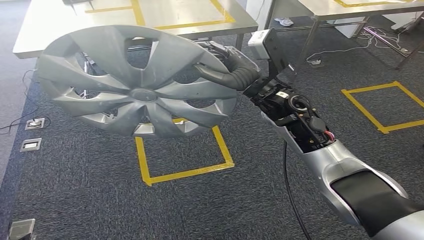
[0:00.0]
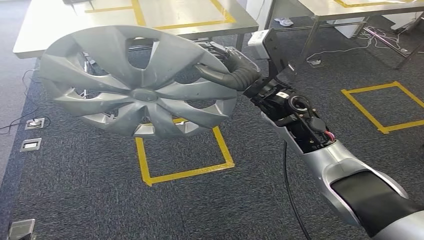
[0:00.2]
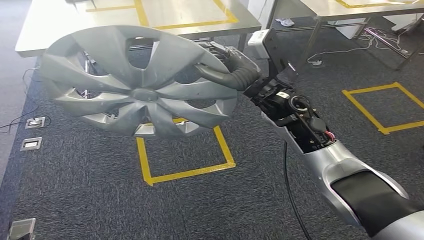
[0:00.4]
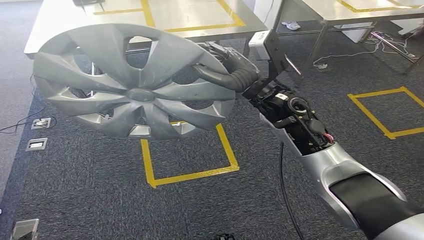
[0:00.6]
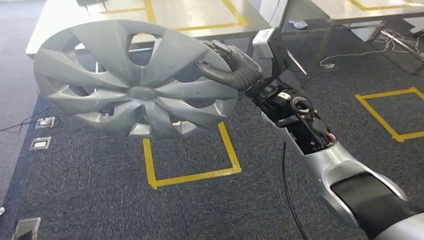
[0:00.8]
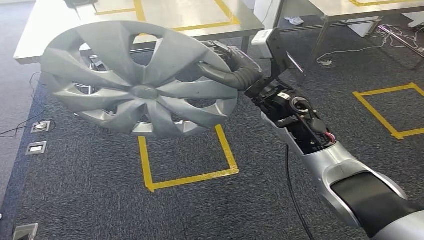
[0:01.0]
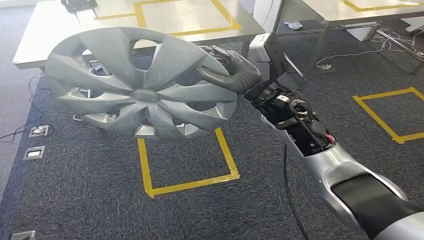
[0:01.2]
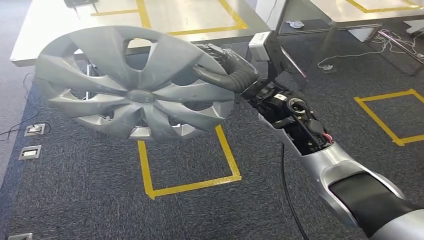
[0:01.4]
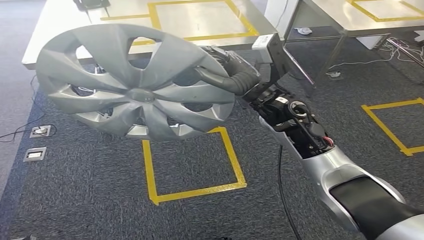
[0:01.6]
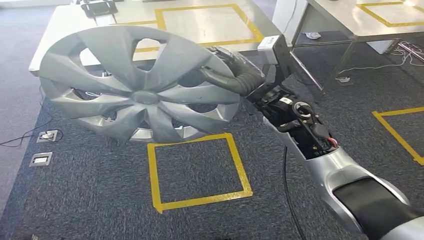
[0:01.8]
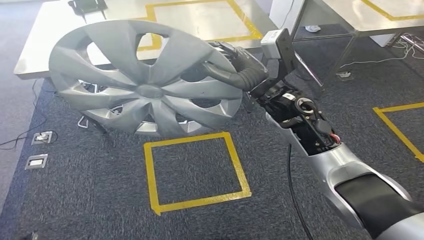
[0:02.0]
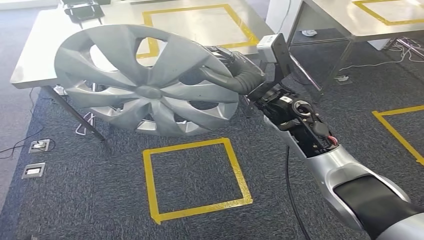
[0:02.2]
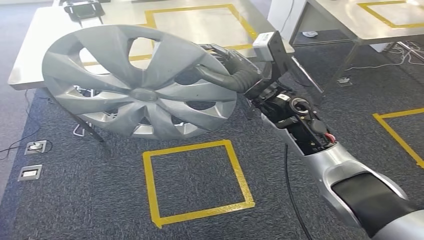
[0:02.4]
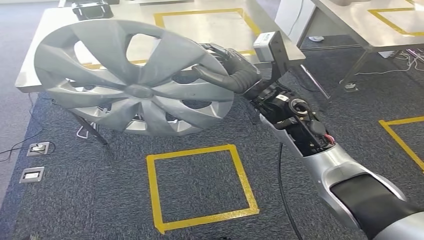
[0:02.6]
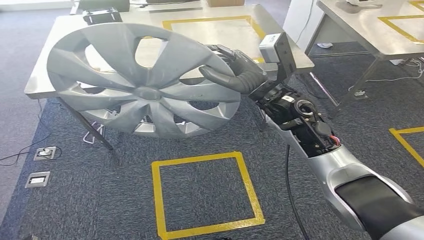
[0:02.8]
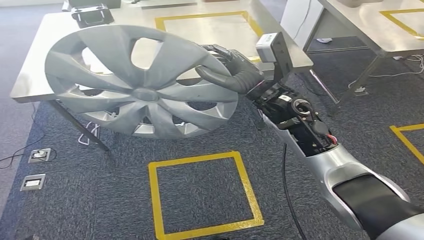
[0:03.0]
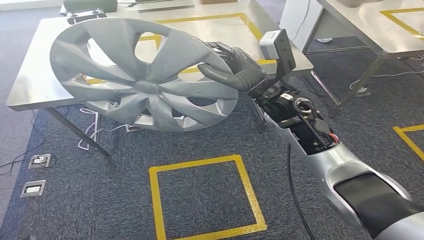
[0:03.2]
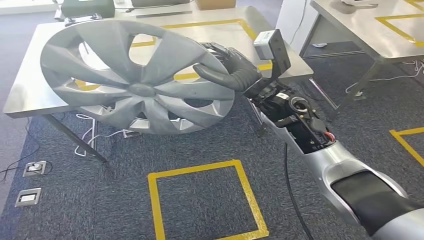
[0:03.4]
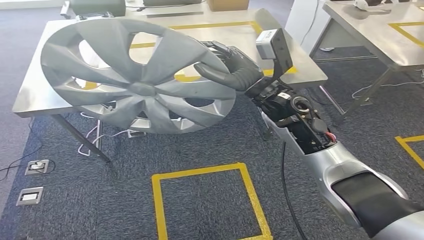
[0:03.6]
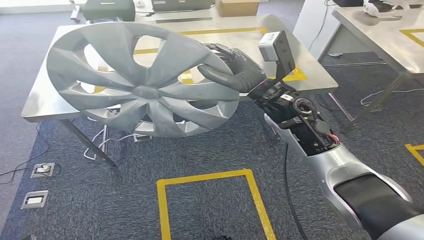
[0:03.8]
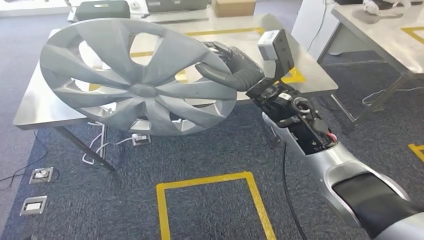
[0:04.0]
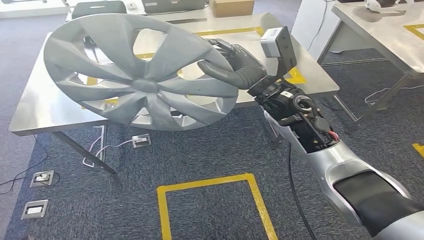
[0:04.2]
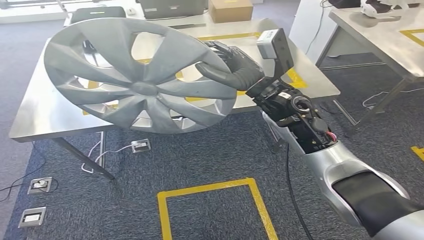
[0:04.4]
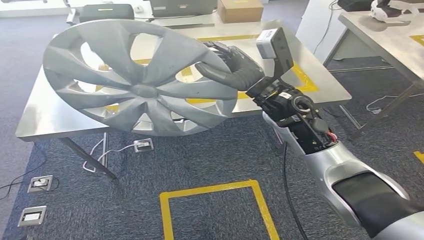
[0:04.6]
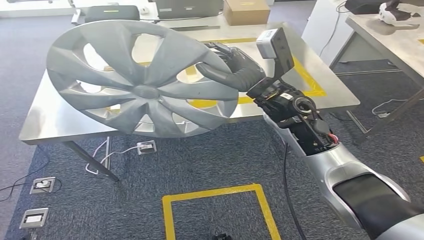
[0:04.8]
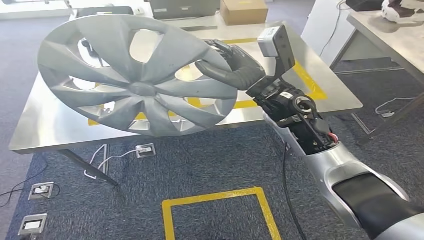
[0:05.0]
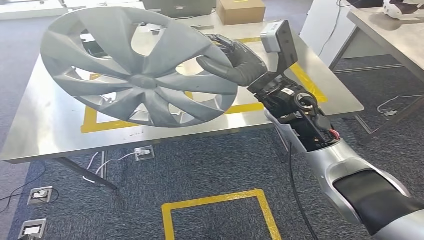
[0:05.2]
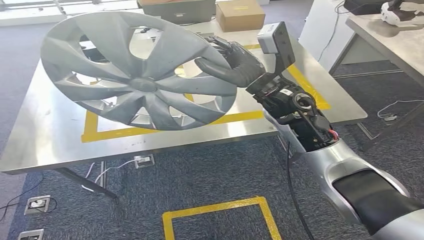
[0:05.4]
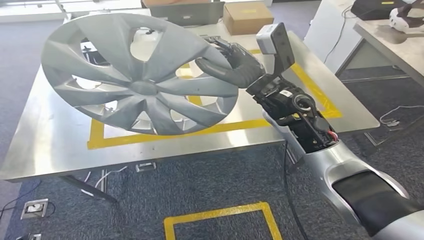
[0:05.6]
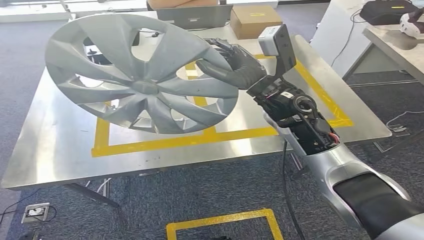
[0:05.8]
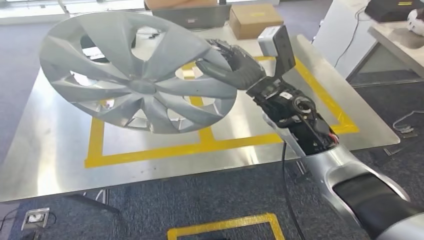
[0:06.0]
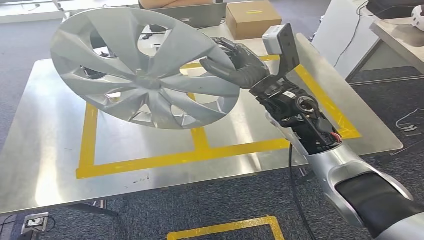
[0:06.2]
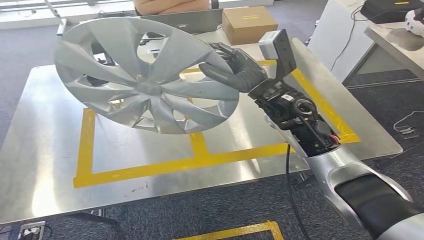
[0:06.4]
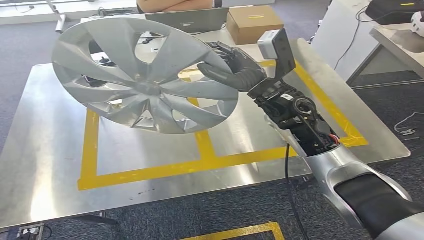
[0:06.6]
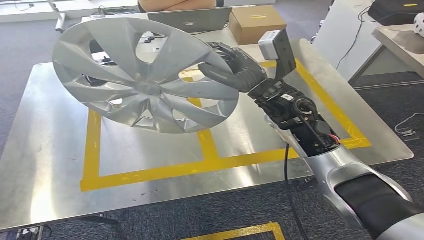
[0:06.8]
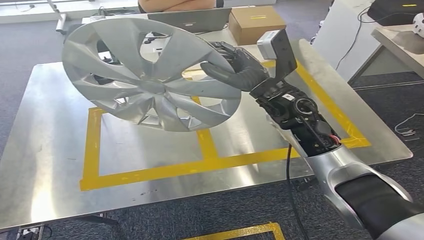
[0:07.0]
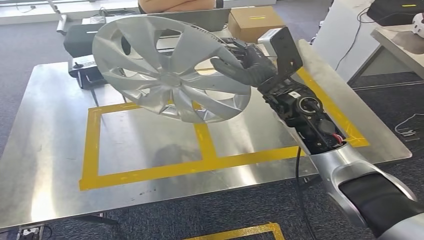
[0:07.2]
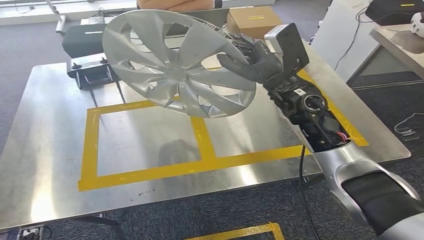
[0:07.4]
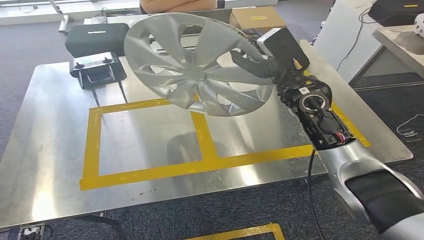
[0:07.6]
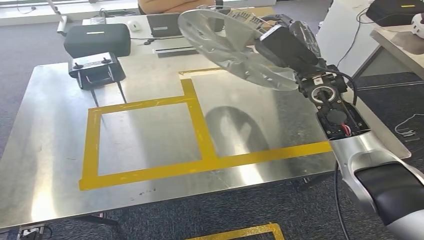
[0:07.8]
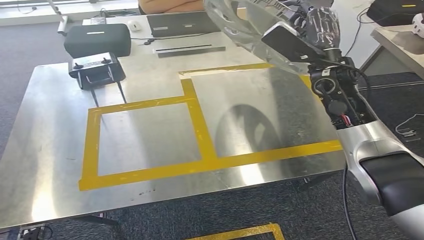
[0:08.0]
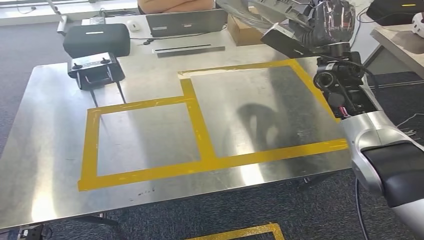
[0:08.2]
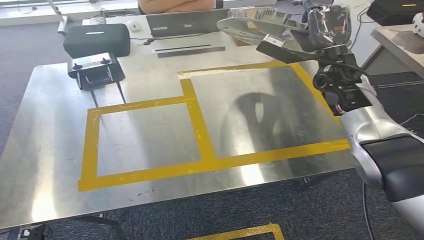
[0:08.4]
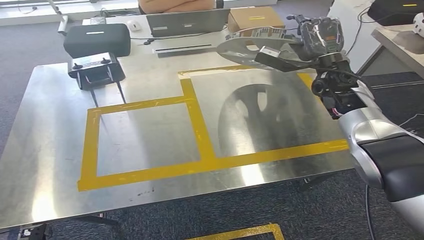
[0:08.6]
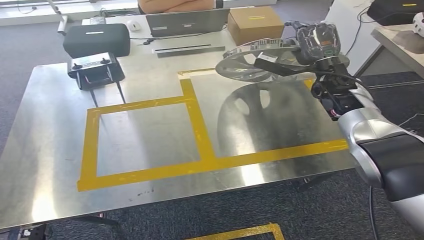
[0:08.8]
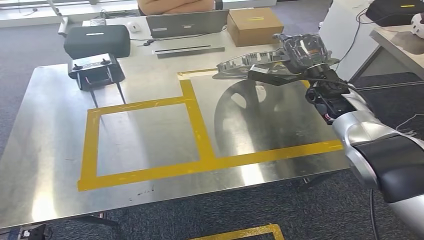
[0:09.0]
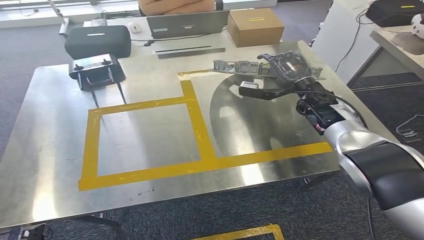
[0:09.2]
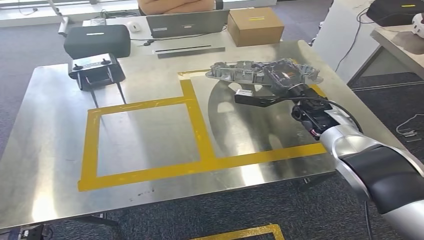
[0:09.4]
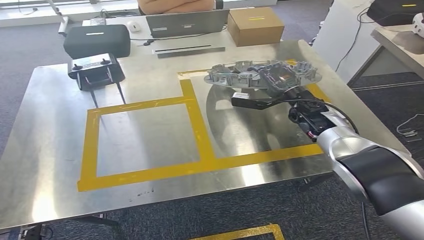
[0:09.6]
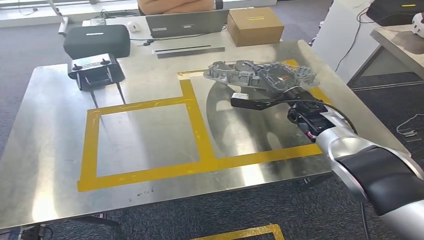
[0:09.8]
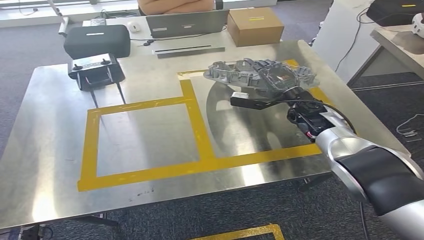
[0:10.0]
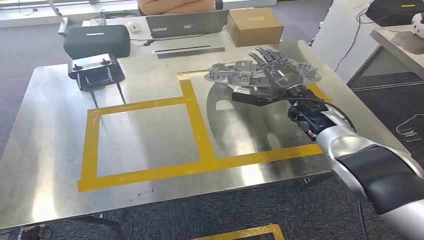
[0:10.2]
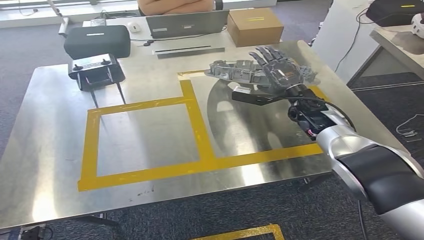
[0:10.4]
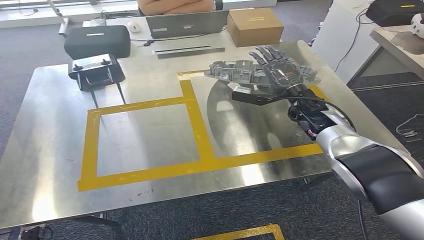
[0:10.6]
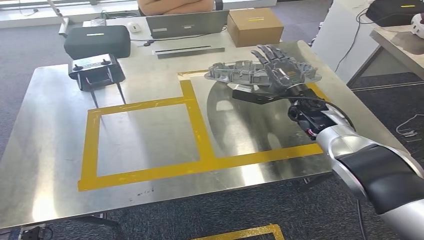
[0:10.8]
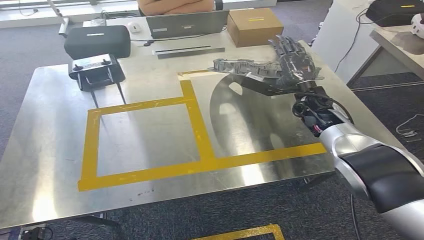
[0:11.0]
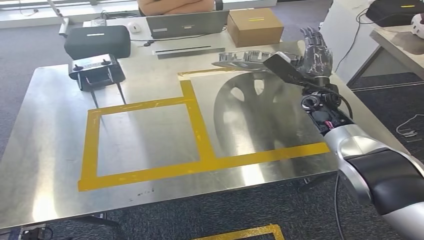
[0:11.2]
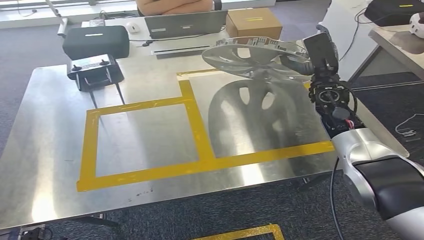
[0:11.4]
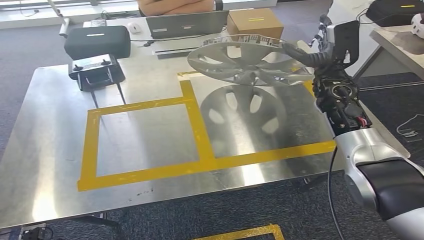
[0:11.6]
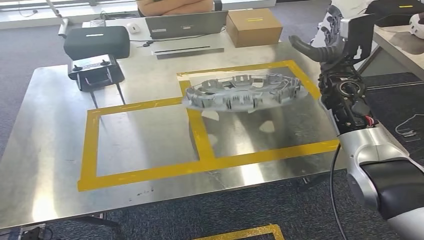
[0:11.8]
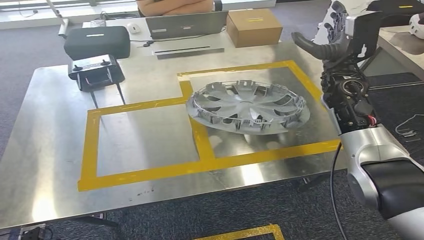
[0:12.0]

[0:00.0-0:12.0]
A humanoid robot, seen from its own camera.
Step, 0:00.0 to 0:06.8: Move the small component to the workbench.
0:09.0 to 0:10.4: The right hand shifts approximately 5 cm downward.
0:10.4 to 0:12.0: The right hand goes about 10 cm upward.

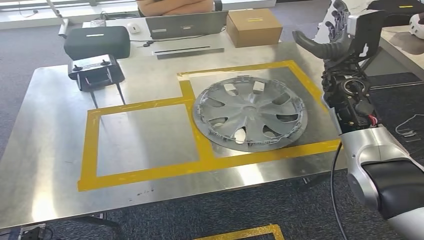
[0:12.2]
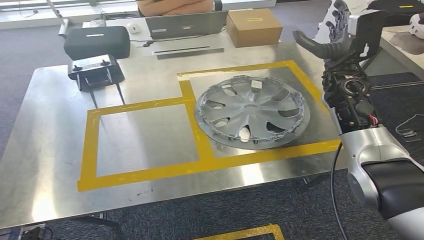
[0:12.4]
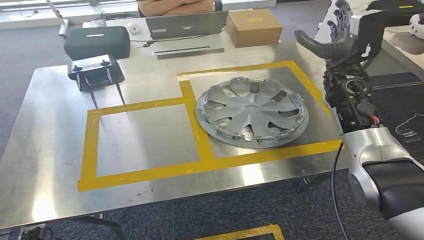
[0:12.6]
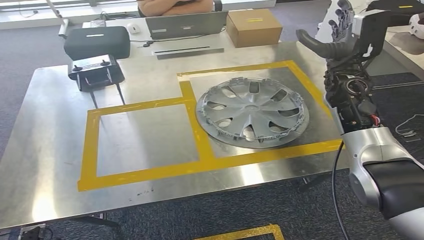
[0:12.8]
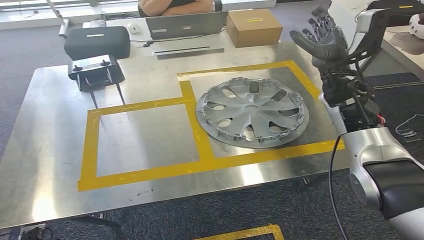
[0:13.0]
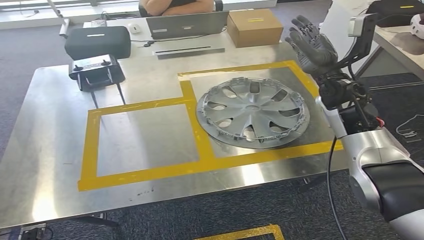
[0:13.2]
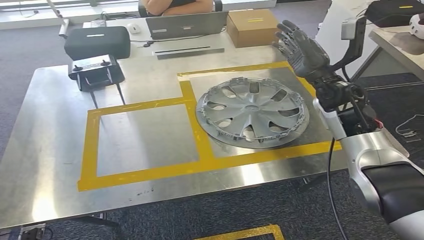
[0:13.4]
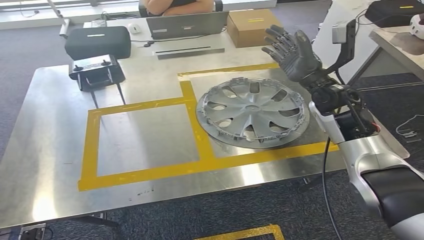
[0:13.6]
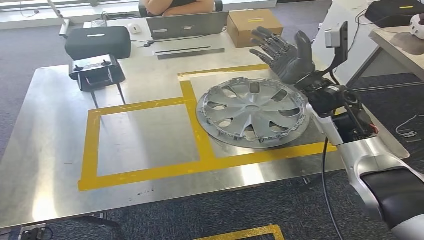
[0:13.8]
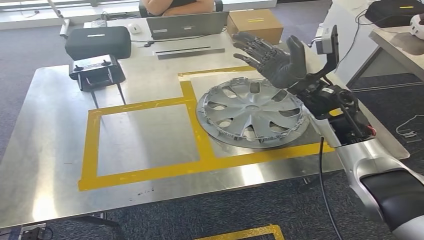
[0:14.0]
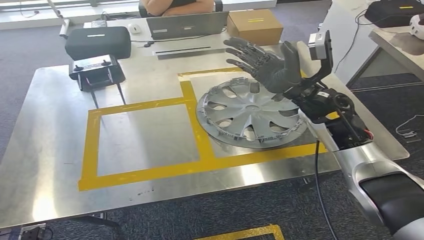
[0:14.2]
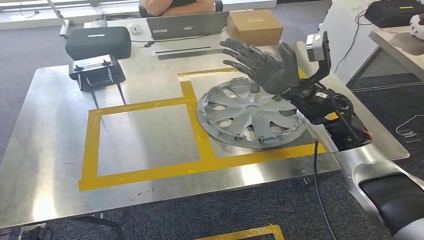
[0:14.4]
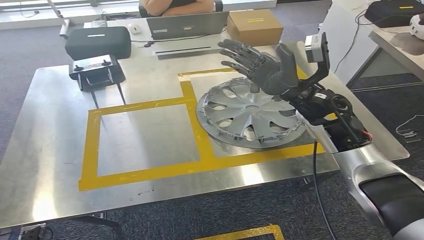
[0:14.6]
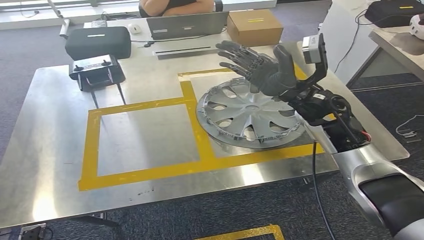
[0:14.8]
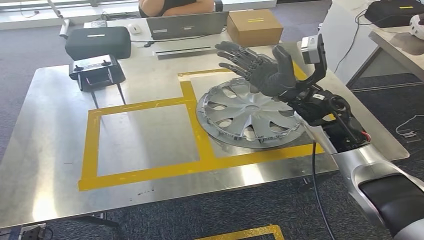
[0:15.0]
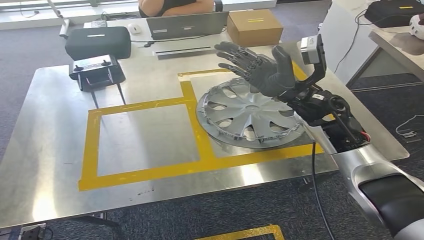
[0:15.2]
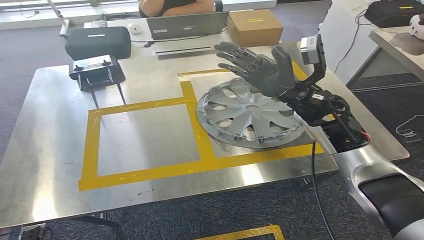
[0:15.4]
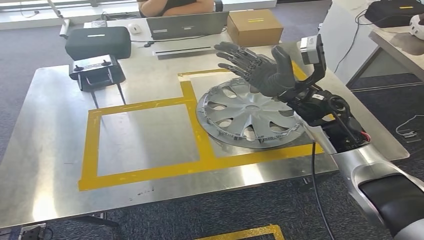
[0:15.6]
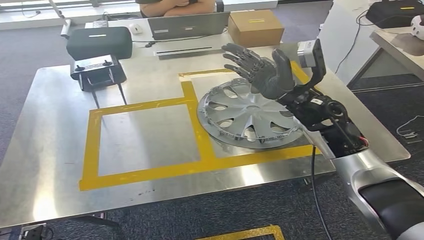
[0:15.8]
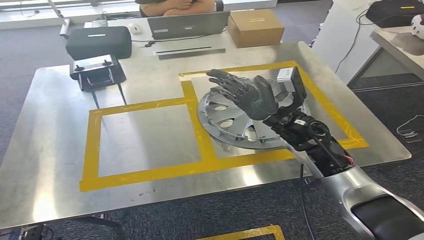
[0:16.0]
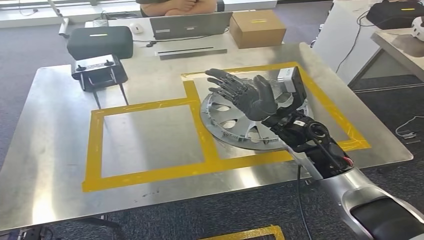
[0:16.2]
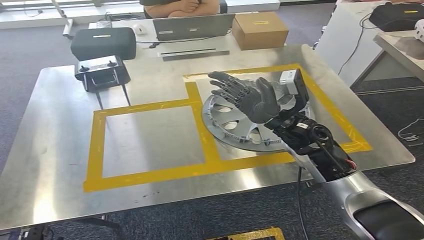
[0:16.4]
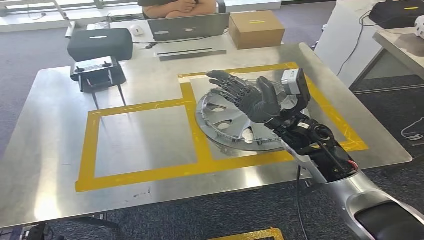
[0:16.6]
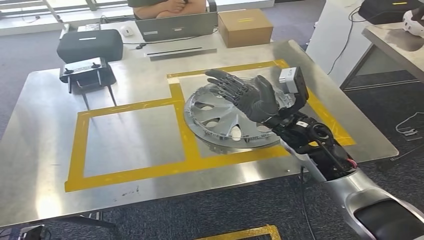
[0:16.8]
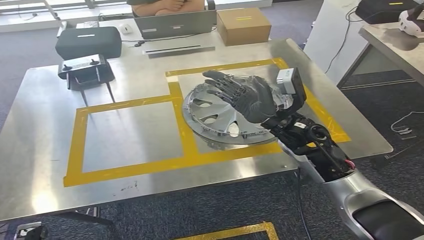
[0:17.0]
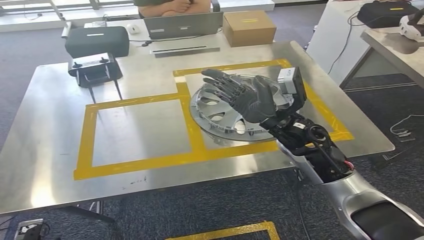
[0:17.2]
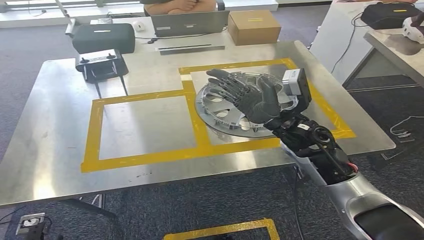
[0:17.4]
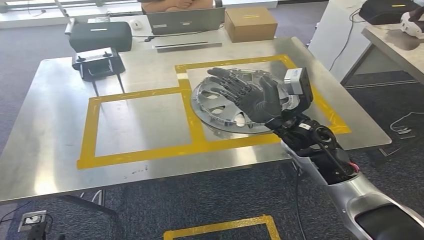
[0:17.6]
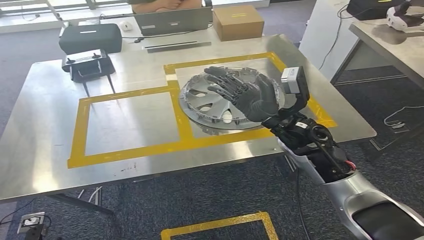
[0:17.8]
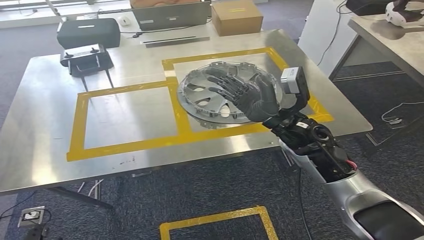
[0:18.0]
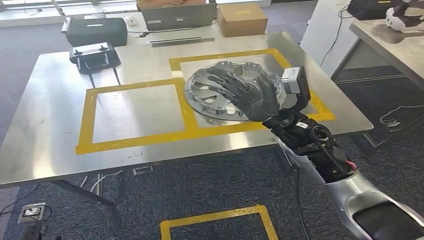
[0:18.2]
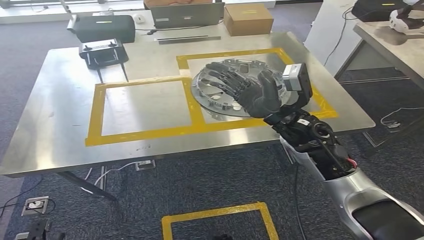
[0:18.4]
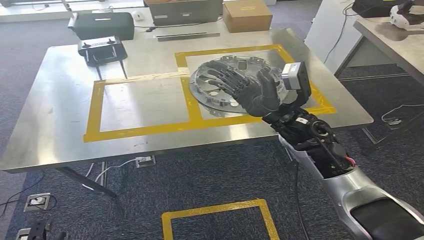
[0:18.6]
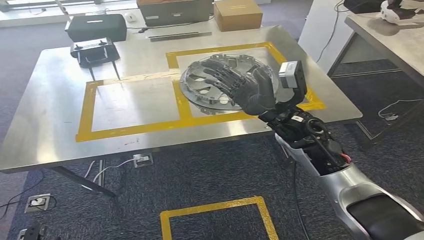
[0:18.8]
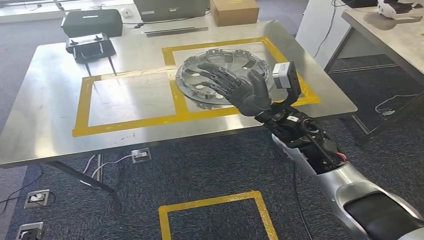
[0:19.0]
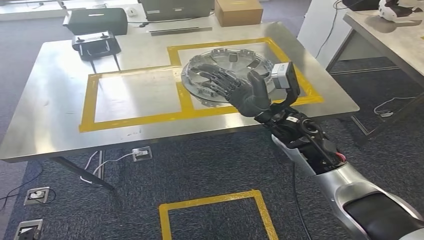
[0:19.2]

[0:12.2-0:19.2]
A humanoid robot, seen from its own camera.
Step, 0:12.2 to 0:14.2: Insert the small component into the corresponding slot on the workbench.
0:13.6 to 0:15.0: The right hand heads to the left, covering some 5 cm.
